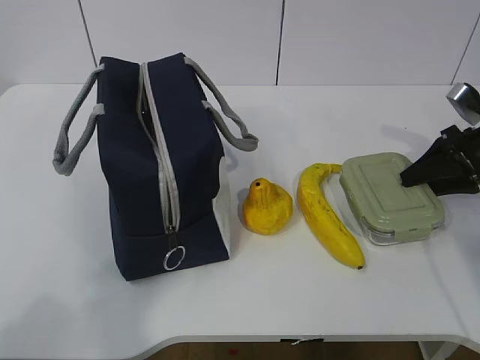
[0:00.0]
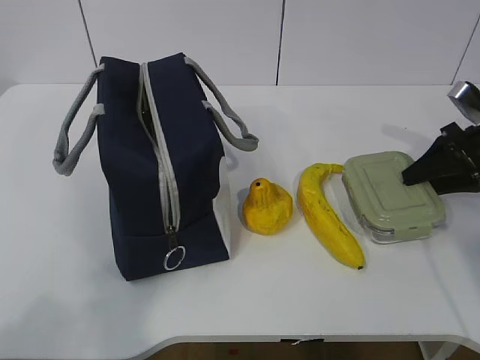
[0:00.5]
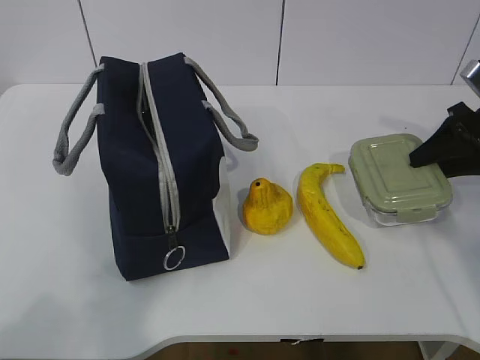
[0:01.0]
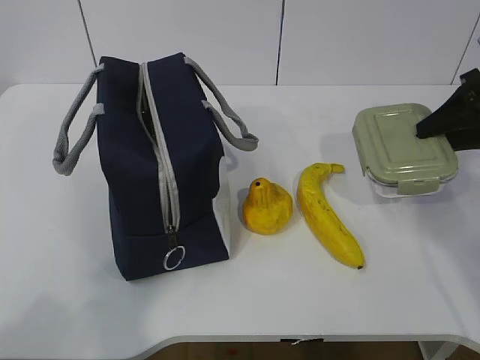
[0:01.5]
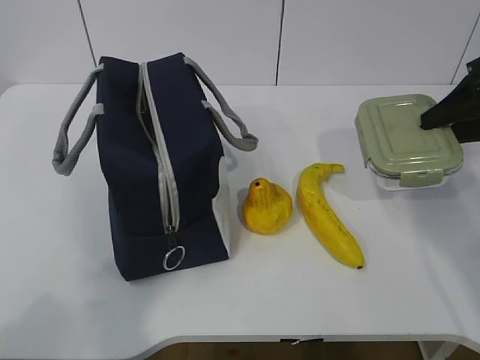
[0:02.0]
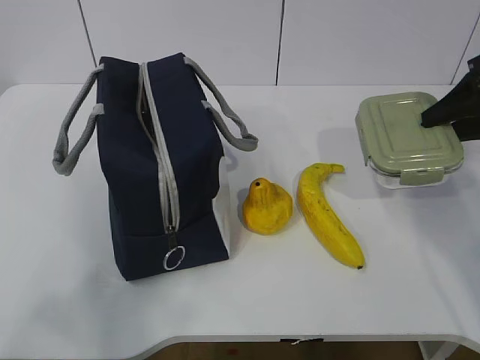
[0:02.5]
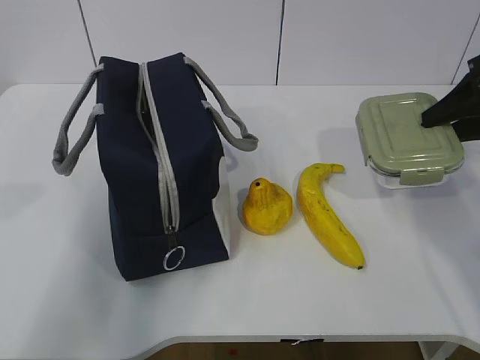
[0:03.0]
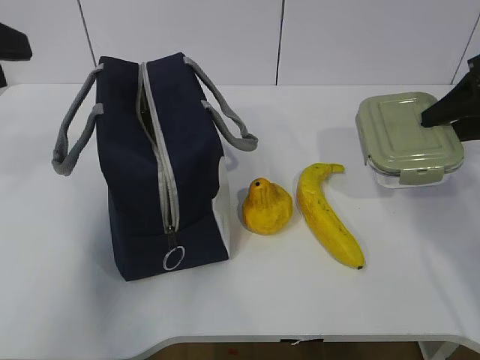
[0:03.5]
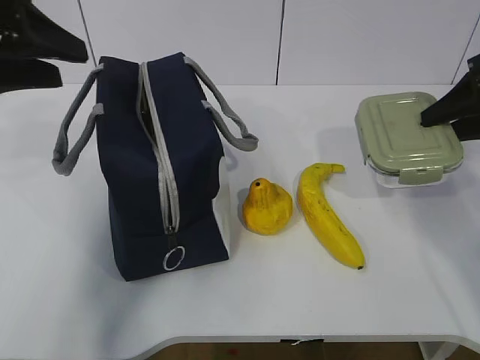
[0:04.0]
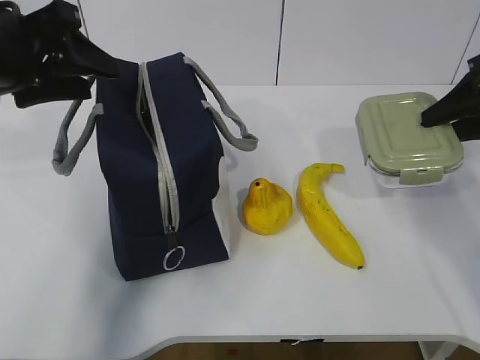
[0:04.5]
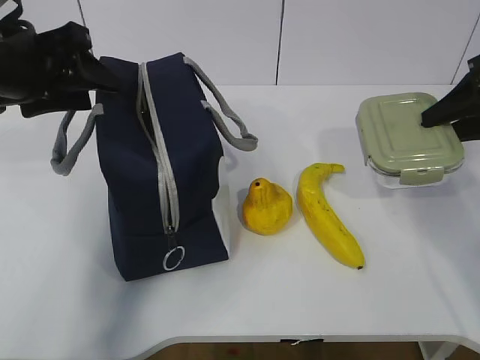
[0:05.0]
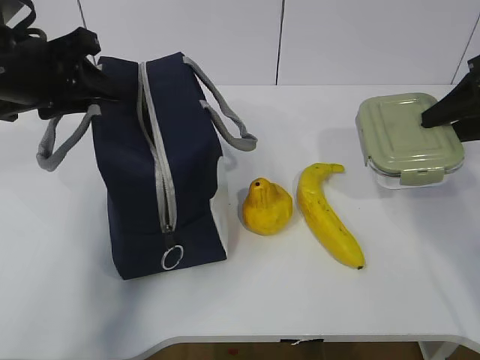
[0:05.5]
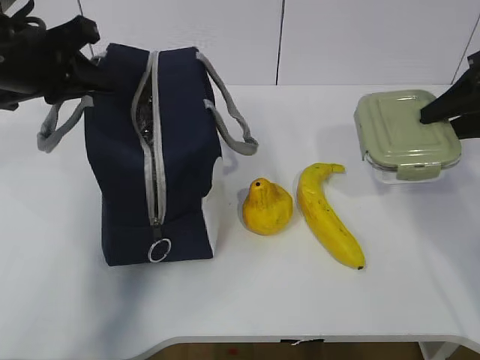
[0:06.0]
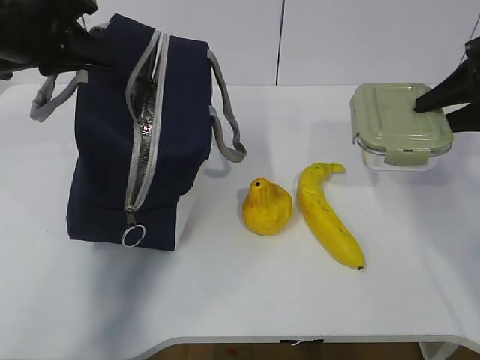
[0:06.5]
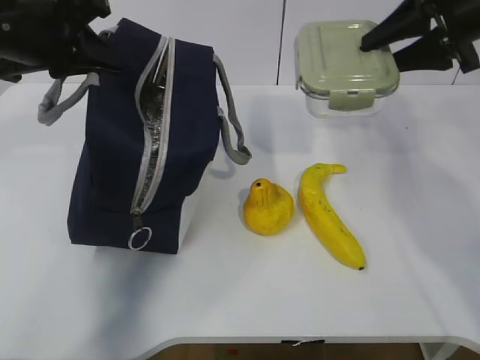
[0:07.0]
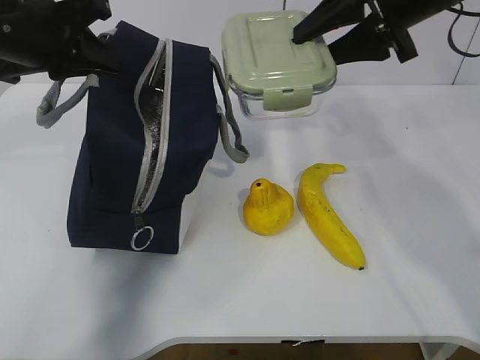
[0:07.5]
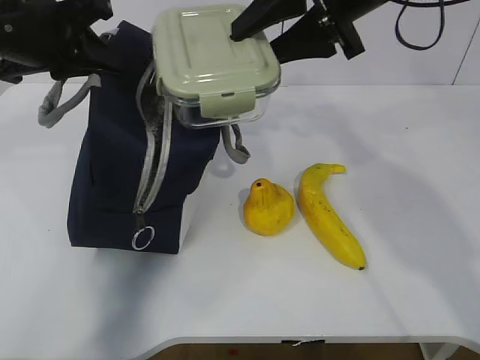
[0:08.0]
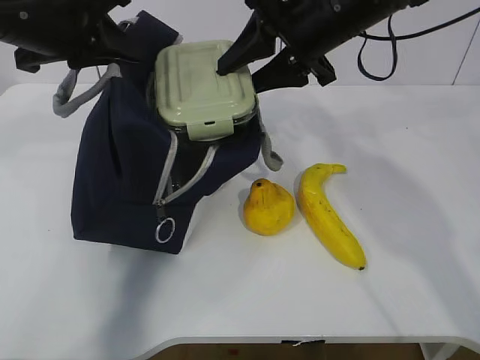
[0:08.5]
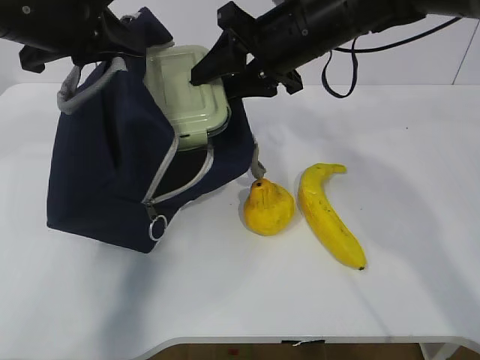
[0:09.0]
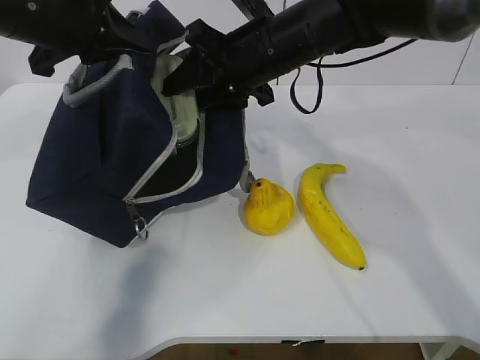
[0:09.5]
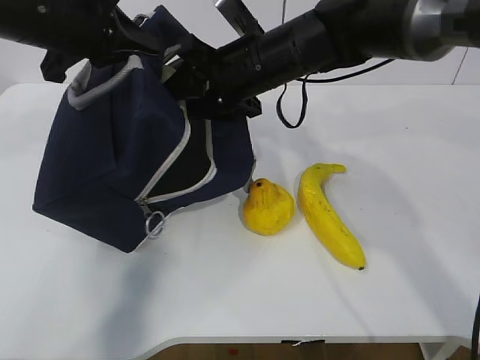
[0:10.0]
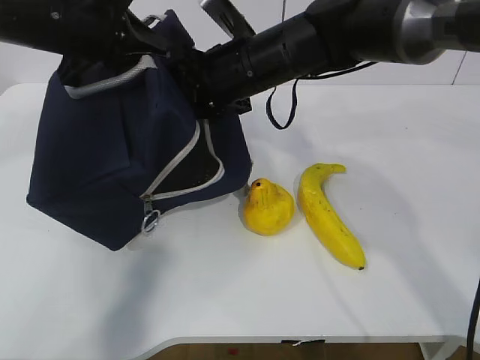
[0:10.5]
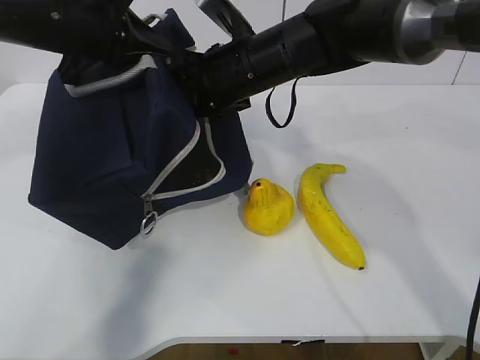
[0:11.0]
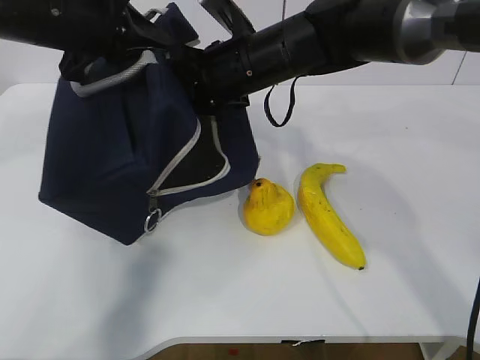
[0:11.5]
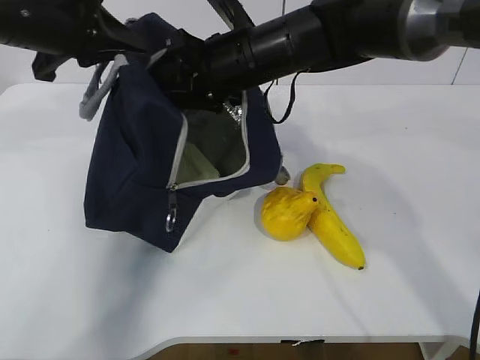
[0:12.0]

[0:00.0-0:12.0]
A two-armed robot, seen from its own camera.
Step, 0:00.0 to 0:04.5: Grab the lunch bag with your left hand.
Step, 0:05.0 to 0:07.5: Place it into the bag with your right hand.
0:00.0 to 0:02.0: The right gripper goes roughly 10 cm upward.
0:02.0 to 0:04.0: The left gripper heads forward, covering about 30 cm.
0:04.0 to 0:06.0: The left gripper moves approximately 5 cm, and closes.
0:06.0 to 0:08.0: The right gripper travels to the left and upward by some 25 cm.
0:08.0 to 0:10.0: The right gripper goes roughly 15 cm downward, to the left and forward.
0:10.0 to 0:12.0: The grippers make only small movements.

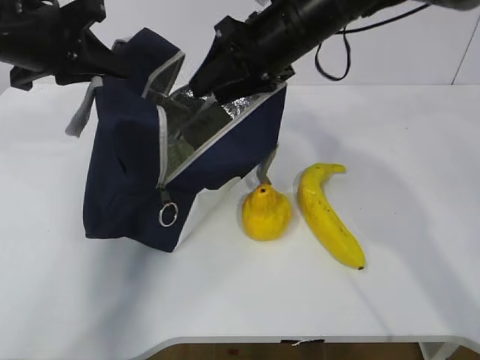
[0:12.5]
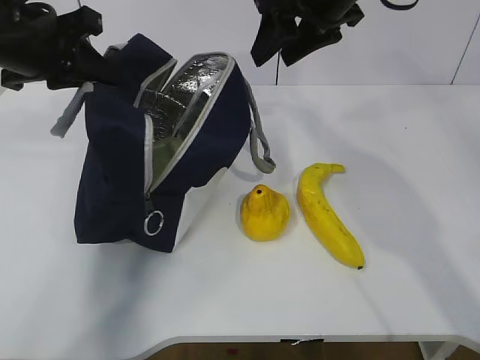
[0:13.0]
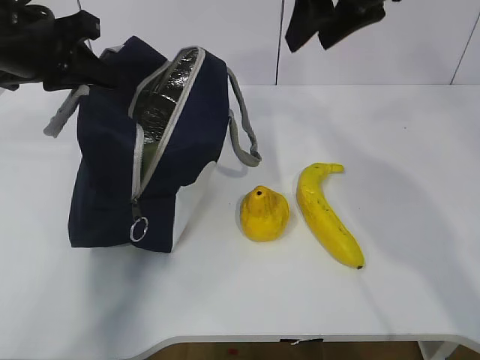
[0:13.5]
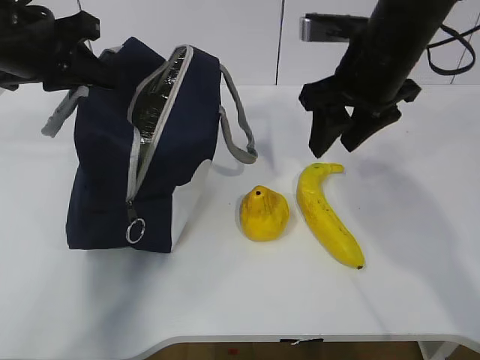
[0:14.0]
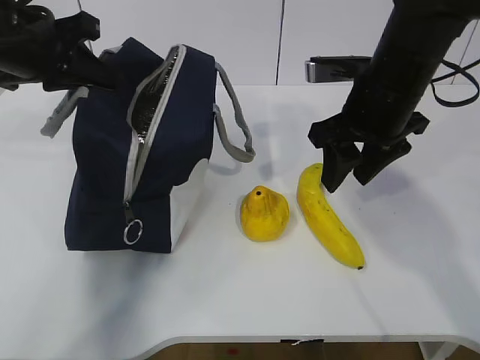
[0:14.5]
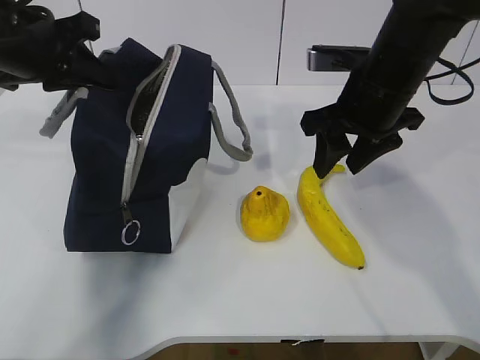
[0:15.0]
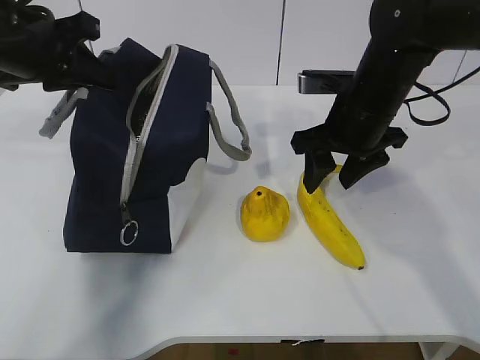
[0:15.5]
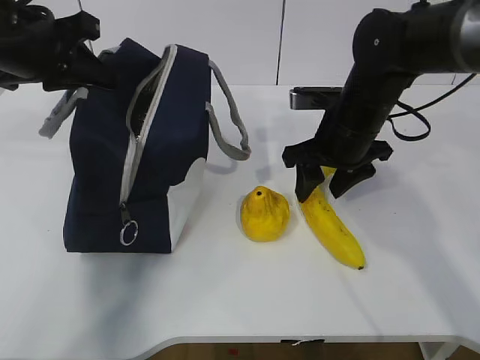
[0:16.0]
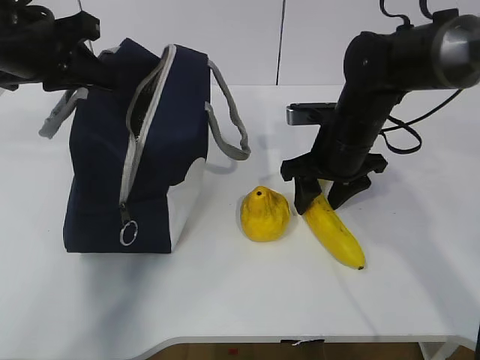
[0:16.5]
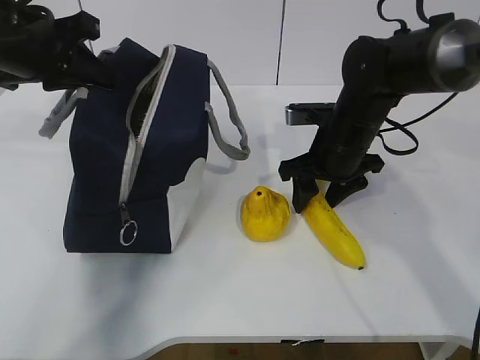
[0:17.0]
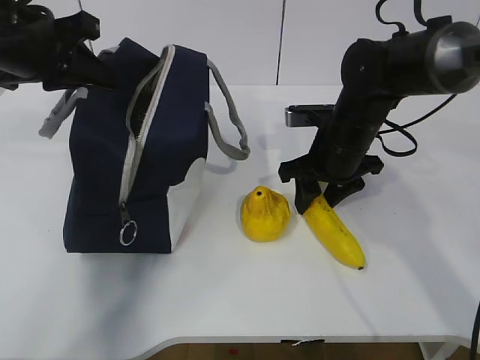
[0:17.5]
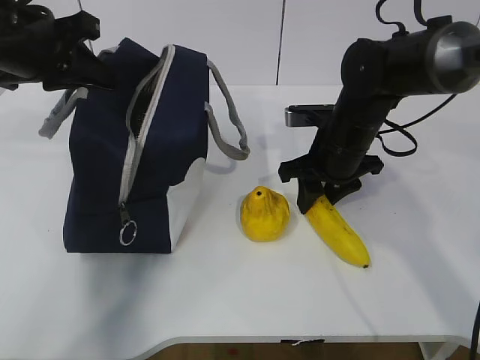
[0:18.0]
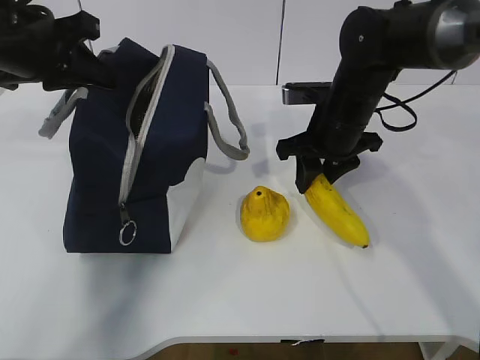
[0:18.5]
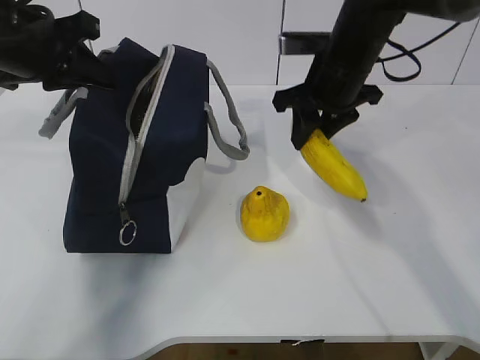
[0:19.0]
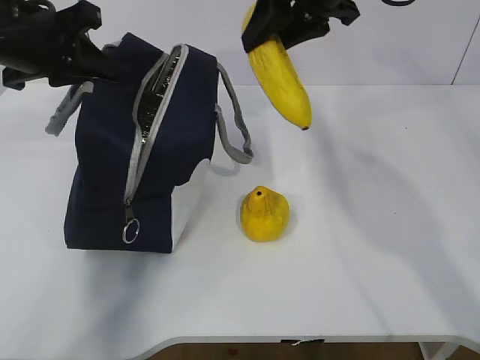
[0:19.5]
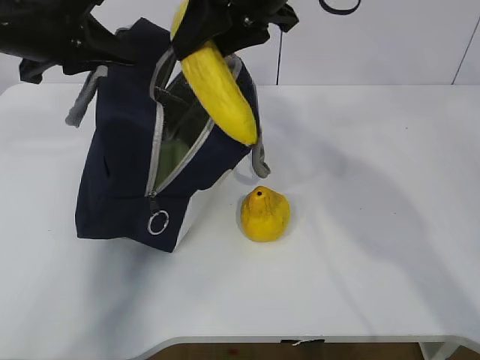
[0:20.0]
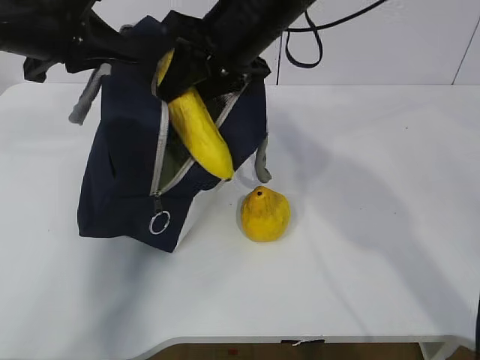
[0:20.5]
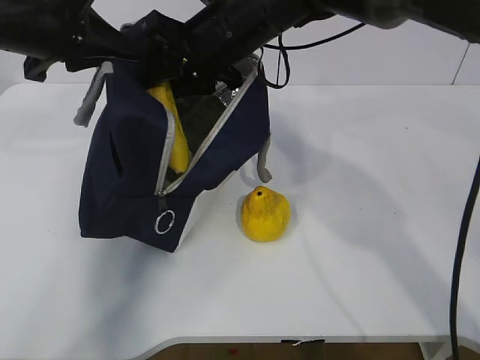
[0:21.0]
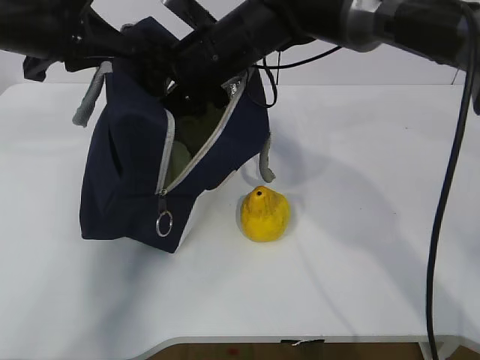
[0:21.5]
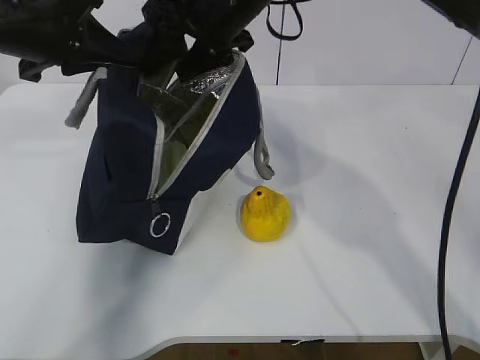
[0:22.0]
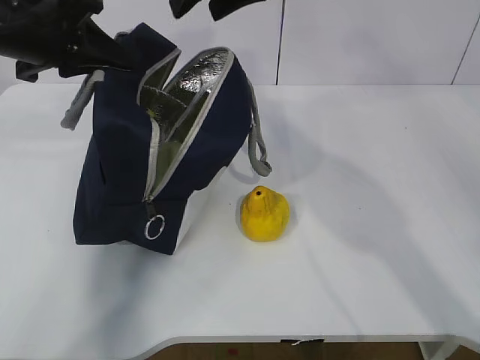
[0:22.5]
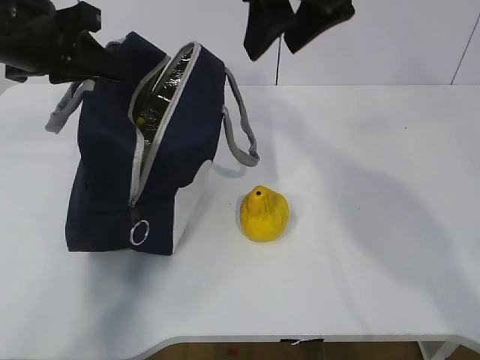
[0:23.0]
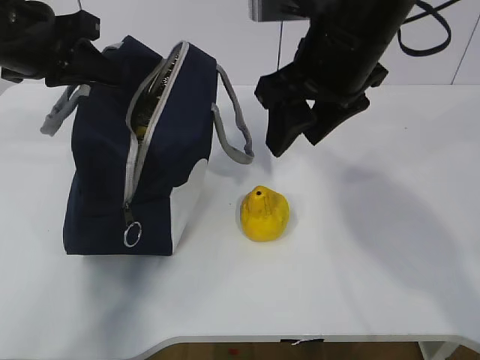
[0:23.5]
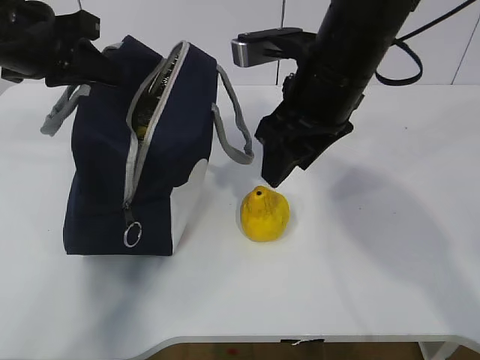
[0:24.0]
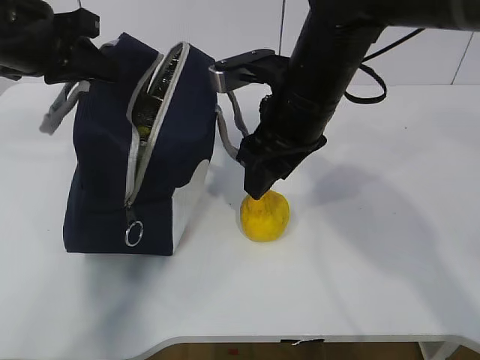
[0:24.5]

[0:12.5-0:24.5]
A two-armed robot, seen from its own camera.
Step, 0:13.0 to 0:15.5: Place it into the bag with your right hand.
Step, 0:16.0 to 0:20.0: Grab the pear with your right hand.
0:12.5 to 0:14.5: The right gripper moves to the right and backward, about 10 cm, and travels upward and back again, approximately 10 cm each way.
0:14.5 to 0:16.5: The right gripper shifts about 10 cm downward.
0:16.5 to 0:18.5: The grippers make only small movements.
0:18.5 to 0:20.5: The right gripper shifts roughly 15 cm upward and to the left.
0:20.5 to 0:22.5: The right gripper heads upward, covering some 10 cm.
0:22.5 to 0:24.5: The right gripper heads downward and backward, covering approximately 15 cm.

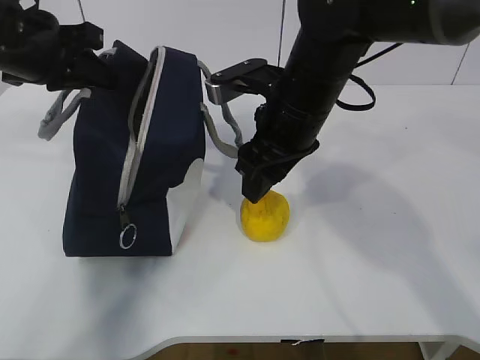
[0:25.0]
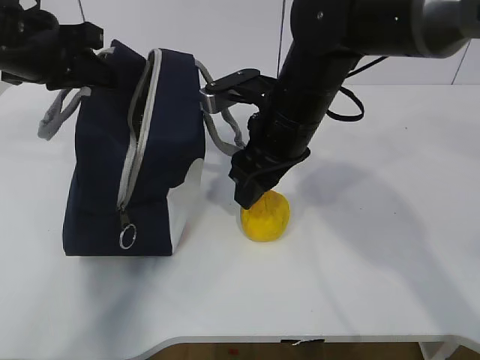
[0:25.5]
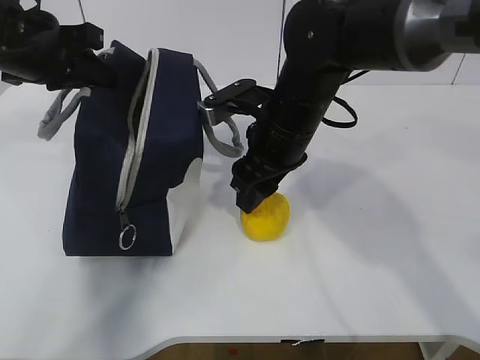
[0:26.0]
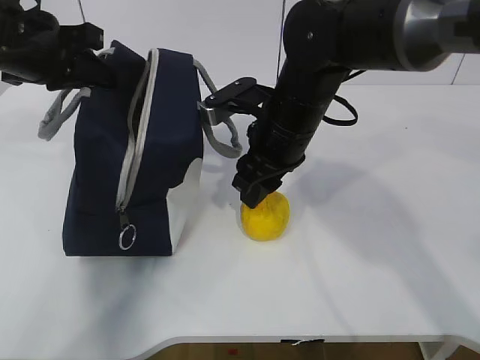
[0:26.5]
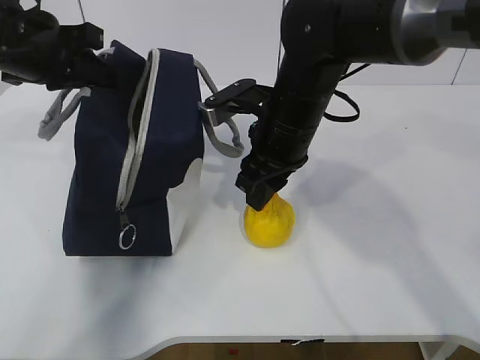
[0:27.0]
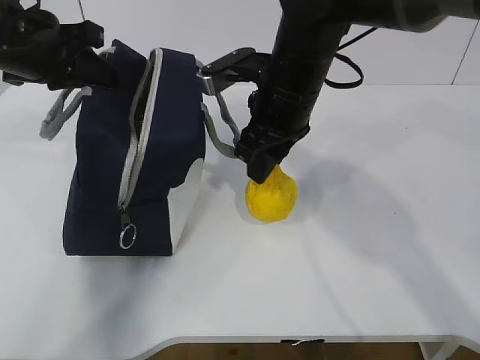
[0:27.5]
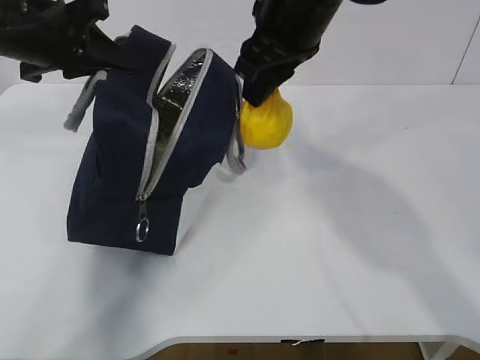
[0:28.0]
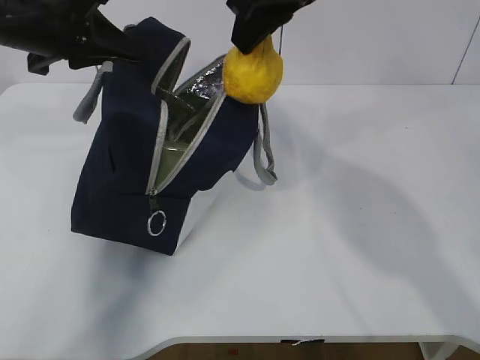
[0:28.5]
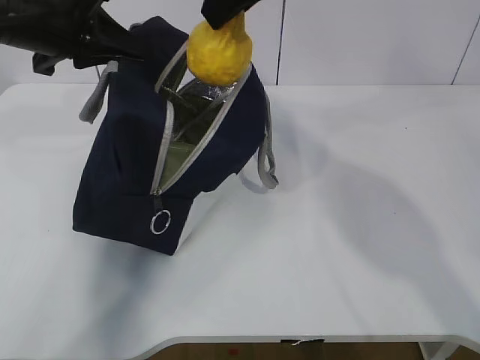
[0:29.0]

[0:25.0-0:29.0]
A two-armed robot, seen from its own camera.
Step, 0:25.0 to 0:27.5: Move the lunch bag to the right.
0:25.0 to 0:27.0: The grippers make only small movements.
0:27.0 to 0:29.0: The right gripper is displaced upward by approximately 20 cm.
